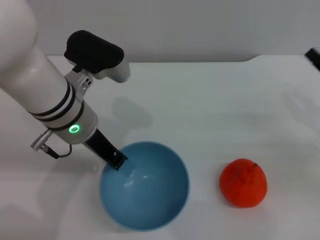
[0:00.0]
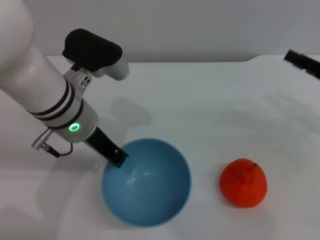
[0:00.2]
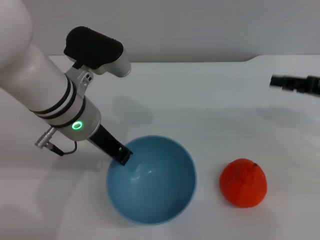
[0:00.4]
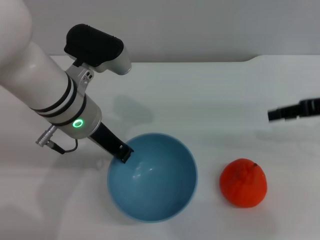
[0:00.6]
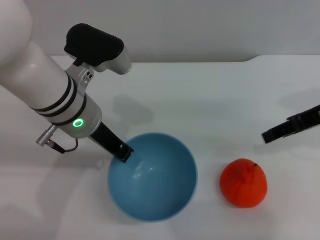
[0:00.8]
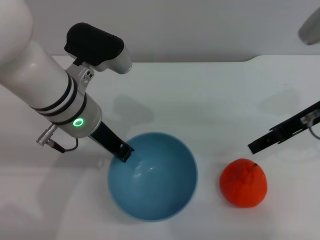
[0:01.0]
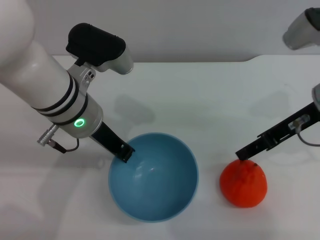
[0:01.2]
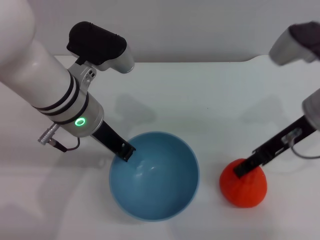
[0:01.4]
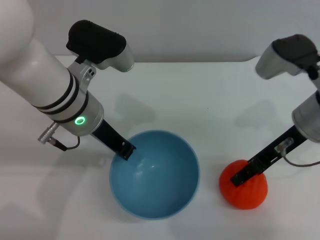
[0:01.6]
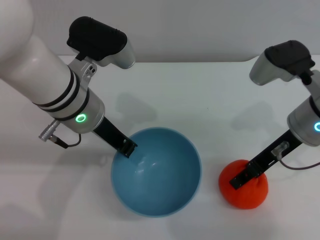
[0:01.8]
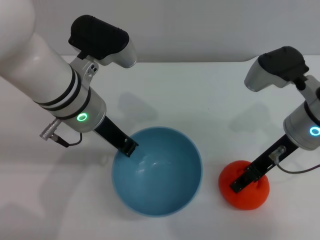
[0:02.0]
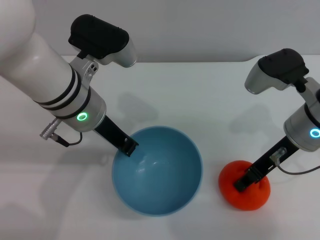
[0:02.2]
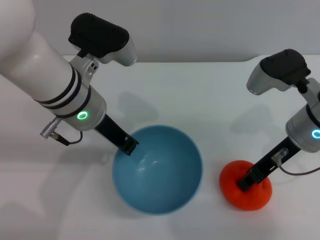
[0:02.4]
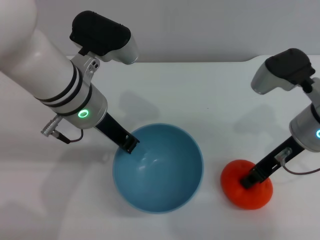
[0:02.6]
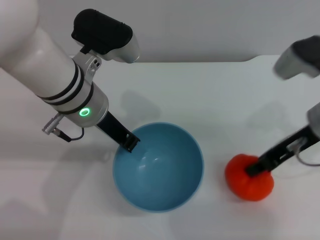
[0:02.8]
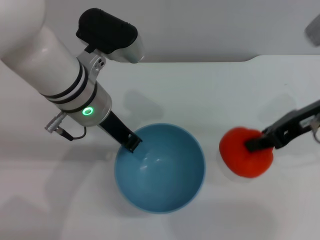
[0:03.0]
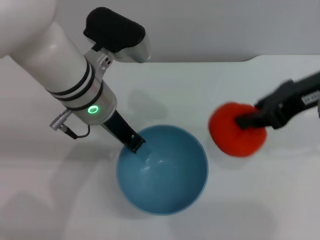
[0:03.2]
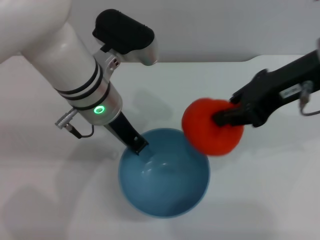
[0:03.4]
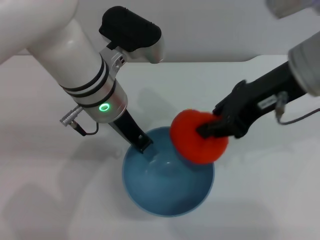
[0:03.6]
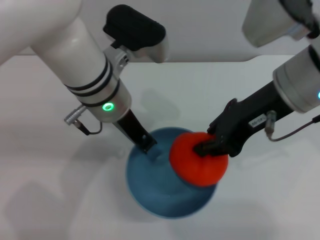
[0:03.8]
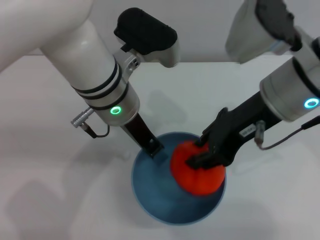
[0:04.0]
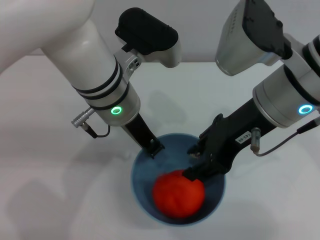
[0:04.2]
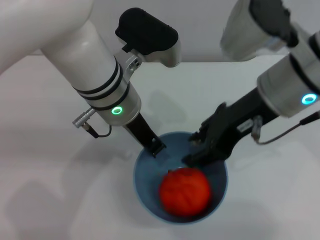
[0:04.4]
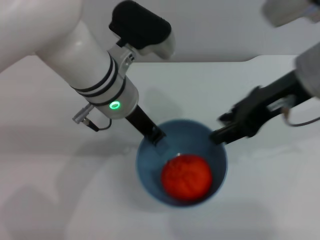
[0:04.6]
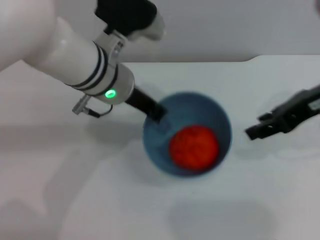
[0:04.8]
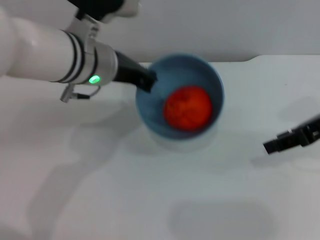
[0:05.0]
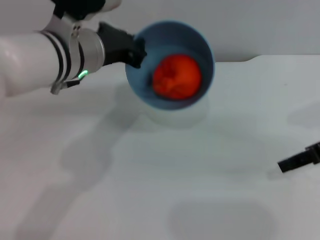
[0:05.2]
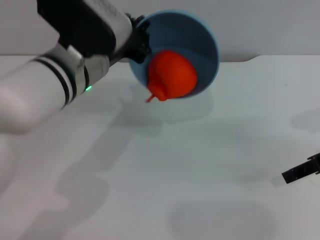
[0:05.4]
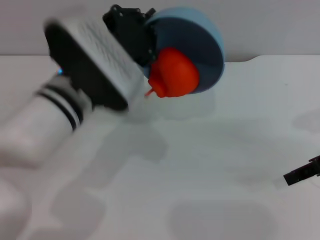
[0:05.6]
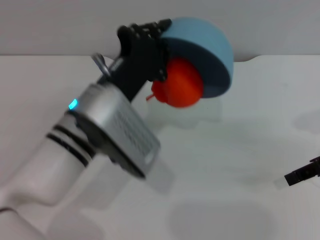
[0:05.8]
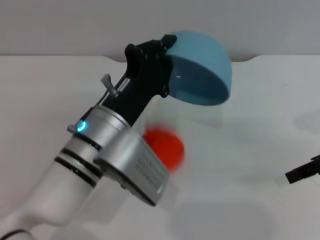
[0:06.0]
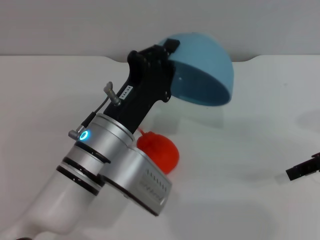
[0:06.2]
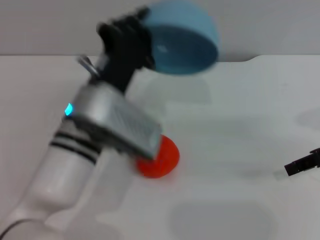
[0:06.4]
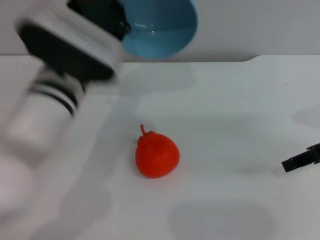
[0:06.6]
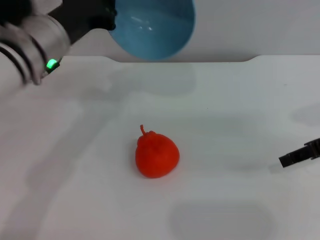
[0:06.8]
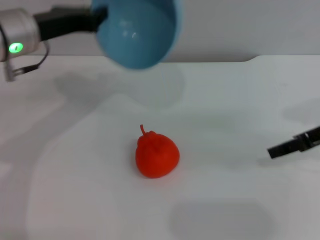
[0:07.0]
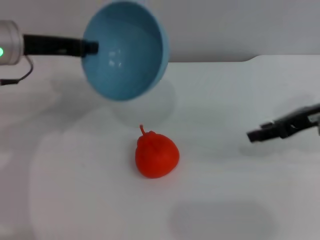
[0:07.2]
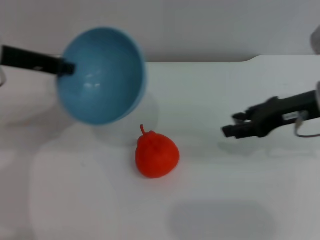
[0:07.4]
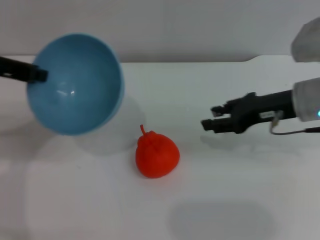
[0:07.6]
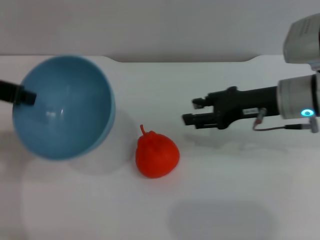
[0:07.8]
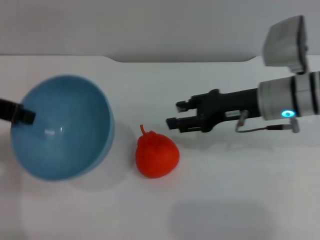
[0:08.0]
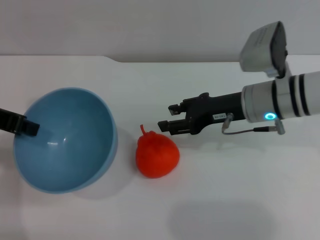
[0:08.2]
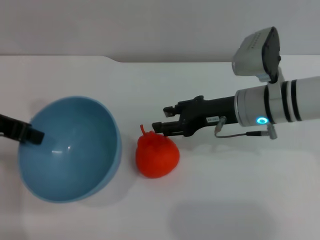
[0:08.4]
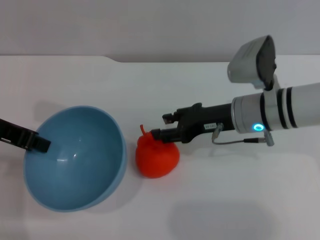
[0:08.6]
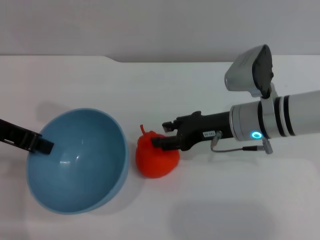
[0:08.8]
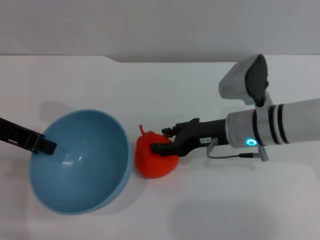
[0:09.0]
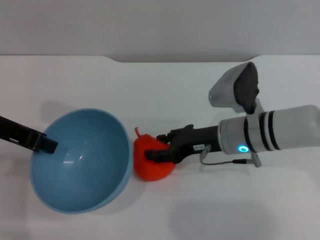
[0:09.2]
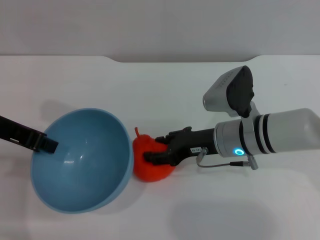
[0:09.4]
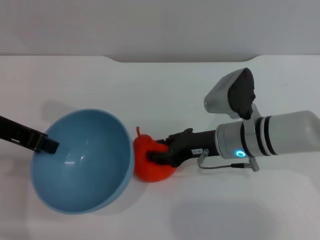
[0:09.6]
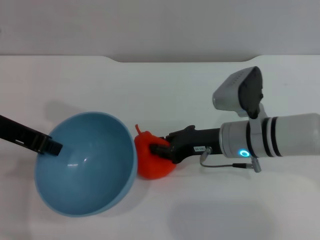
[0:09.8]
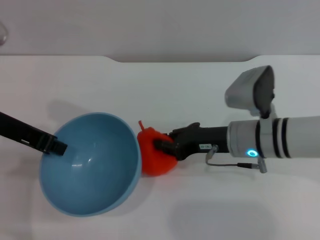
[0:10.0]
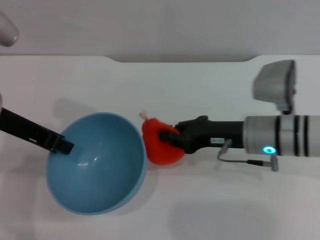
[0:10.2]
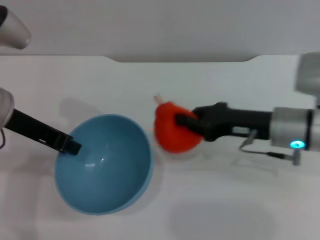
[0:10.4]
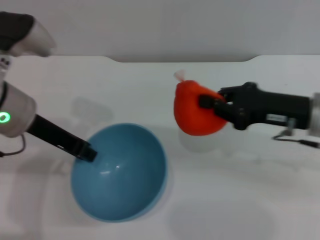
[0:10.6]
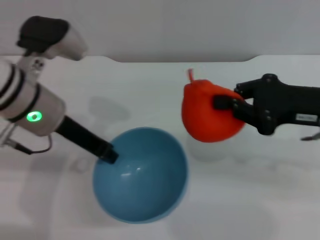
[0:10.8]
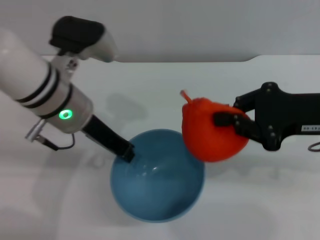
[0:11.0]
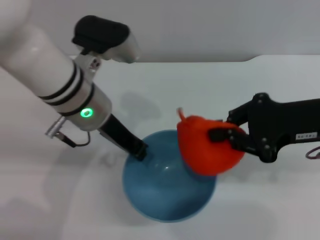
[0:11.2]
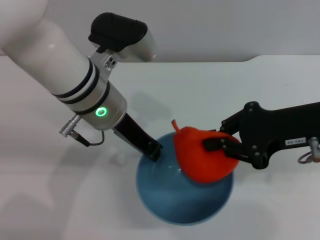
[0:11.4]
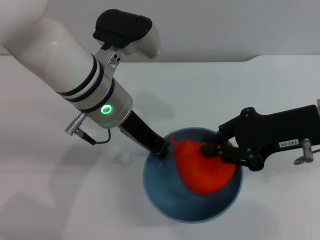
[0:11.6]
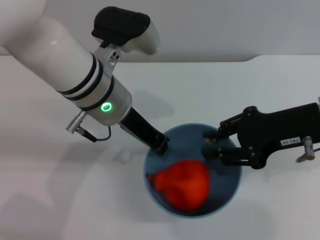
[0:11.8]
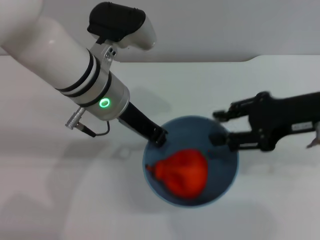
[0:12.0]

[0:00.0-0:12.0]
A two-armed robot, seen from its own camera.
Task of the whole recording: put the orange into the blue bowl and pour it out repeatedly.
Step, 1.4 to 3.0 s: Pick up the orange with the right gripper.
Step, 3.4 to 4.4 s: Place the orange into the bowl.
Step, 4.8 to 6.2 s: Pour the orange out of the bowl.
Step, 6.4 to 10.2 s: Pick up the orange with the right gripper.
Step, 10.4 to 12.0 s: Place the orange into the bowl.
0.0 to 1.6 s: The right gripper goes roughly 15 cm to the left and upward.
1.6 to 3.0 s: The right gripper changes place by roughly 5 cm, and closes up.
3.0 to 4.4 s: The right gripper travels to the left by roughly 10 cm, and opens its fingers.
4.4 to 6.0 s: The left gripper shifts about 10 cm backward and downward. The right gripper goes some 20 cm to the right and downward.
6.0 to 7.6 s: The right gripper shifts approximately 10 cm to the left, while the left gripper travels to the left and upward by roughly 20 cm.
7.6 to 9.0 s: The right gripper heads to the left and downward, covering about 10 cm.
9.0 to 10.4 s: The right gripper moves some 5 cm, and closes up.
10.4 to 12.0 s: The left gripper moves to the right, about 15 cm. The right gripper goes about 10 cm upward, and opens.

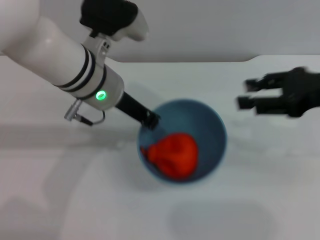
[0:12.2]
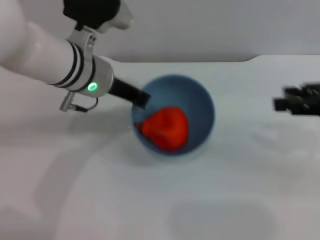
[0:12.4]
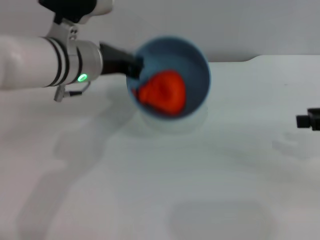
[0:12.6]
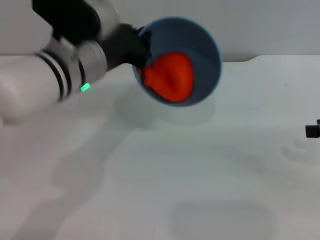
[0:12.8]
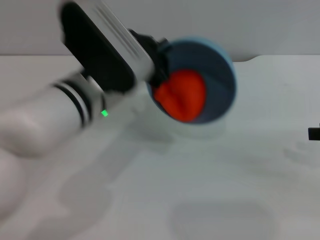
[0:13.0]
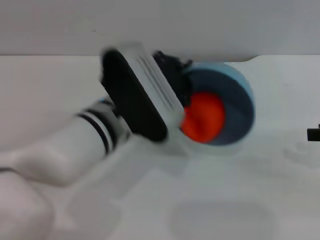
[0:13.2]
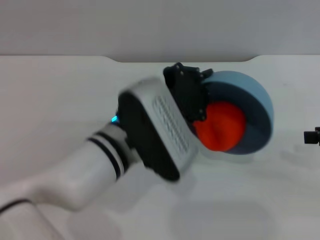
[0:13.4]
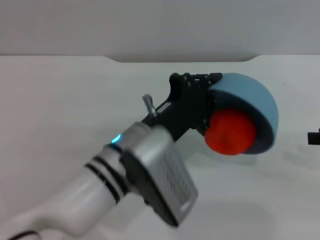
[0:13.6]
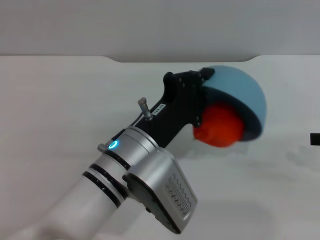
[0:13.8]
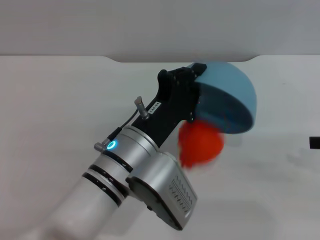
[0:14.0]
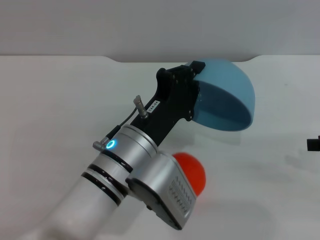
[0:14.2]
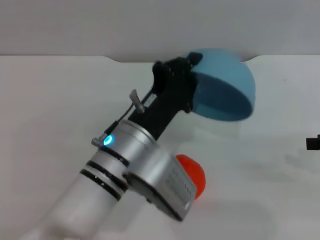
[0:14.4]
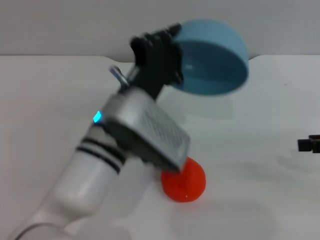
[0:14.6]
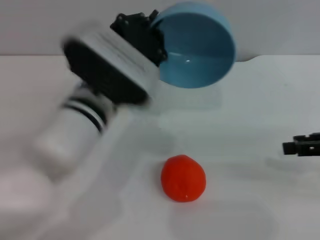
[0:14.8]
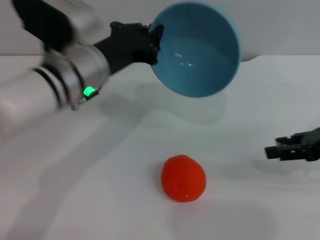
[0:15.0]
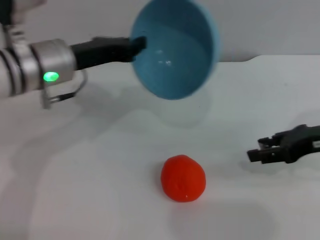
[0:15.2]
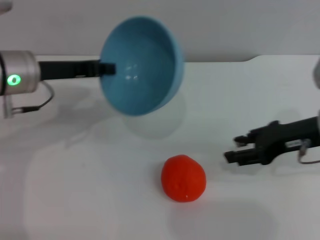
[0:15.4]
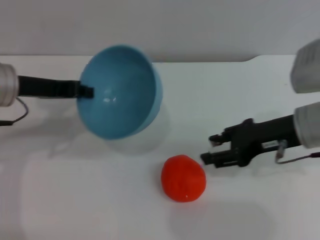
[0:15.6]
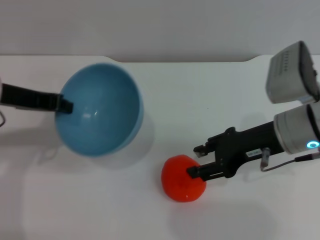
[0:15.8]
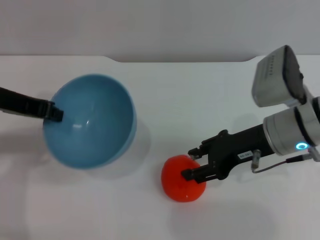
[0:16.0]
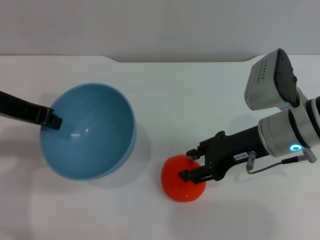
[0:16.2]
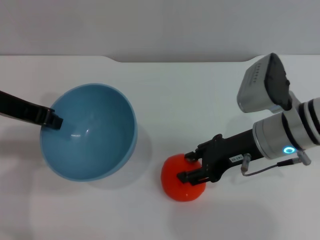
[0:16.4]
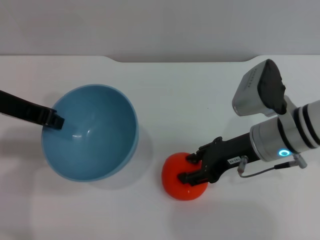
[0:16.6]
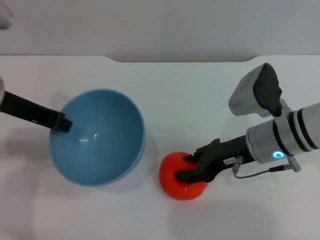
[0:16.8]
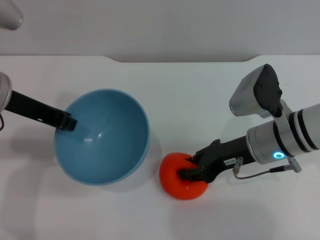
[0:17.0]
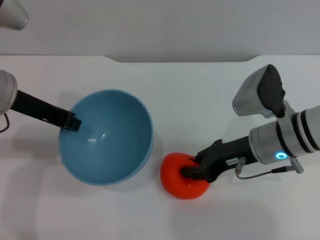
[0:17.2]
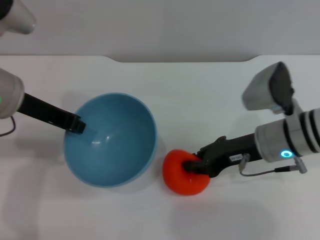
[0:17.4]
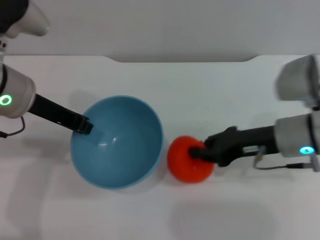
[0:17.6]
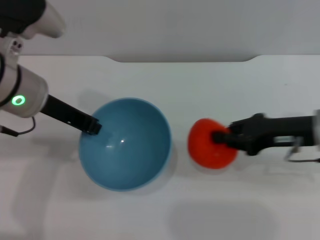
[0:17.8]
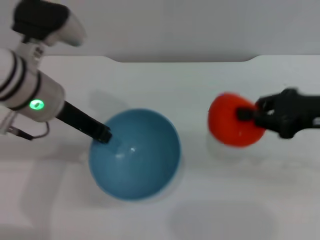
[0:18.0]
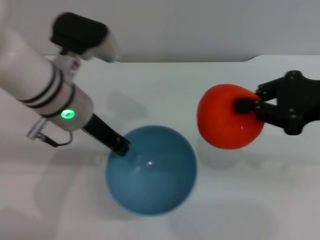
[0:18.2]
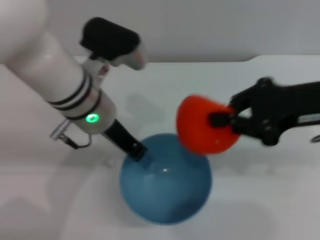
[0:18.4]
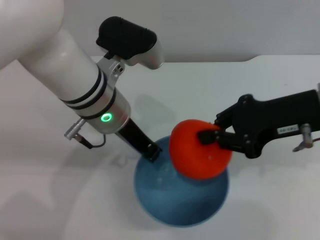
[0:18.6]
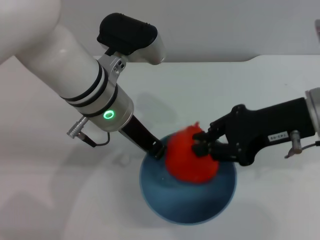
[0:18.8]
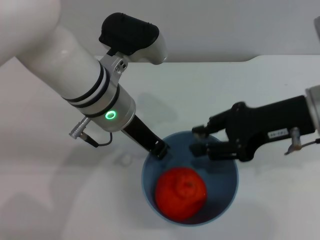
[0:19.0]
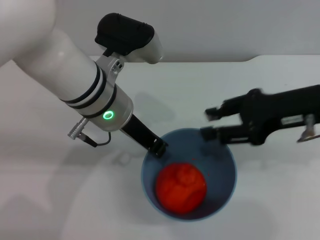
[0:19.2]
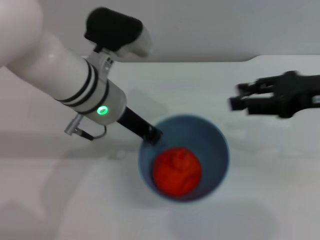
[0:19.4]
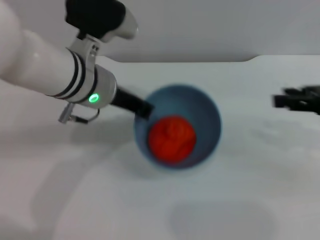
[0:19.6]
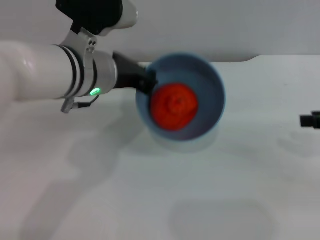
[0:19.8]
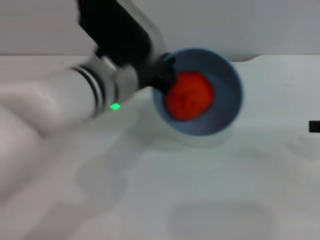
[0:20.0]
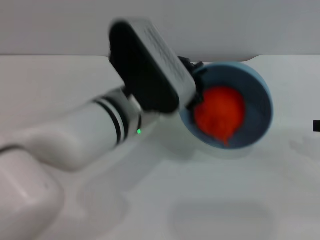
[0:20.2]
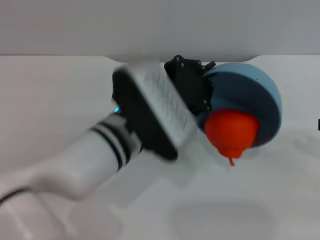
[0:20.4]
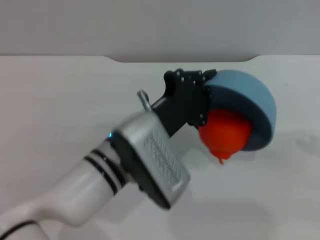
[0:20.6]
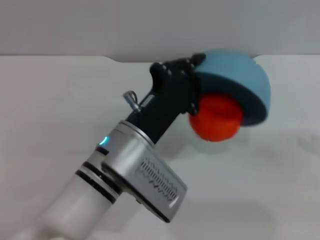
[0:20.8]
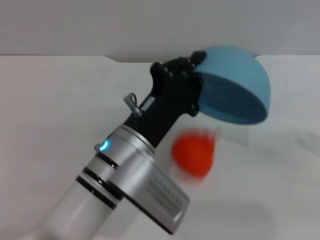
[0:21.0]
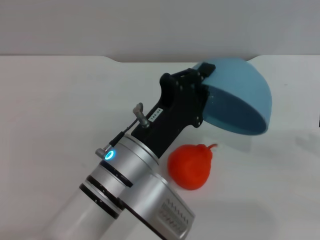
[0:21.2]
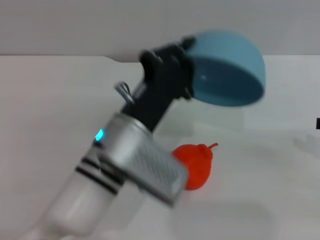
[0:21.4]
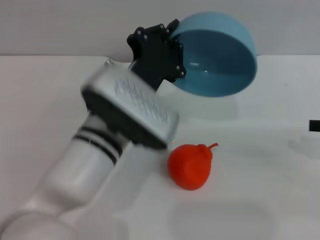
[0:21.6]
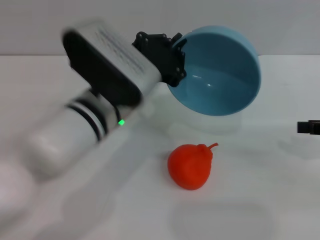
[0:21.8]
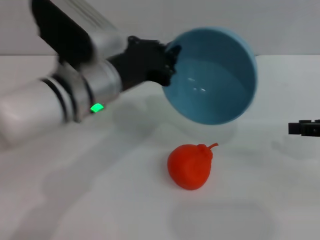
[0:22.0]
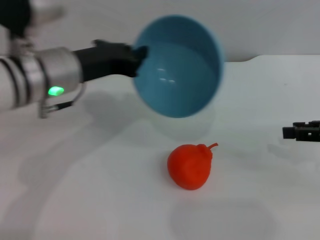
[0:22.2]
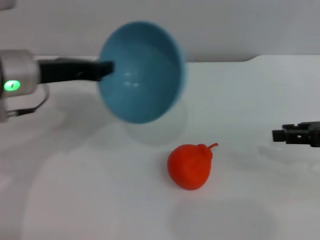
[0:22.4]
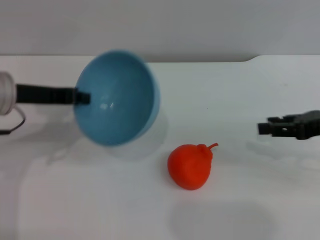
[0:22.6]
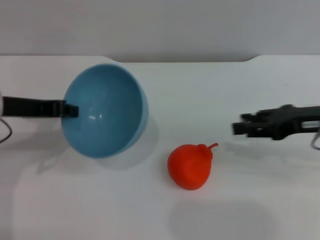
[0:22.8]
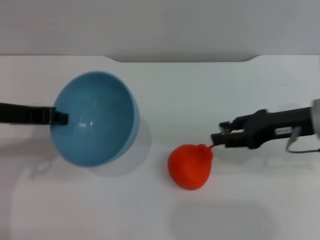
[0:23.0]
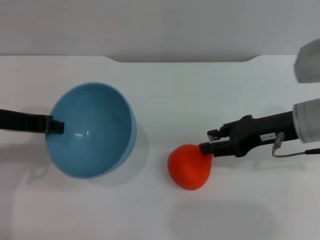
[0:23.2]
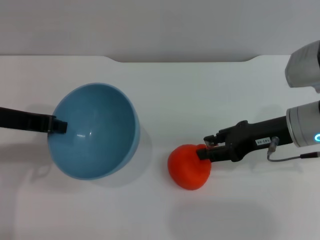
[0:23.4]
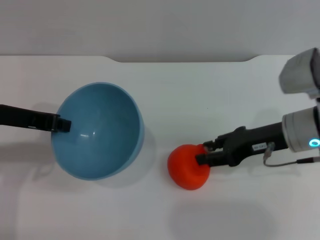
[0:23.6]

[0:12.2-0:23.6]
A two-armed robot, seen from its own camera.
Task of the whole recording: put the orange into the blue bowl and pour it out repeatedly.
Step, 12.2 to 14.6 s: Pour the orange out of the bowl.
Step, 14.8 to 17.6 s: Pick up the orange with the right gripper.
Step, 18.0 to 19.2 s: Place the orange into the bowl.
Step, 19.4 to 21.4 s: Pour the orange out of the bowl.
12.2 to 13.6 s: The right gripper travels to the right by roughly 10 cm; the left gripper travels backward and downward by about 15 cm.
13.6 to 15.0 s: The right gripper ends up roughly 5 cm from where it was. The left gripper goes approximately 10 cm forward, to the left and upward.
15.0 to 16.4 s: The left gripper heads to the left and upward, covering roughly 15 cm; the right gripper travels to the left by approximately 15 cm.
16.4 to 17.8 s: Both grippers move to the right, some 5 cm. The right gripper closes.
17.8 to 19.4 s: The right gripper moves upward, some 10 cm, and opens. Meanwhile the left gripper goes about 10 cm to the right.
19.4 to 20.8 s: The right gripper travels to the right by about 10 cm. Meanwhile the left gripper moves backward and downward, roughly 10 cm.
20.8 to 22.2 s: The right gripper shifts by approximately 5 cm; the left gripper moves to the left, upward and forward, roughly 15 cm.
22.2 to 23.6 s: The left gripper shifts some 10 cm to the left; the right gripper moves to the left, some 10 cm.
